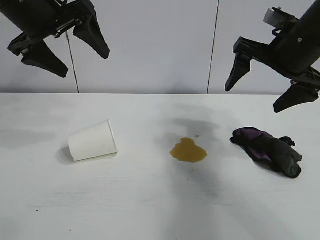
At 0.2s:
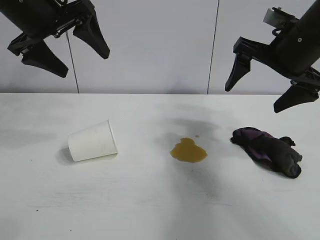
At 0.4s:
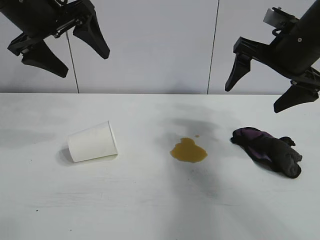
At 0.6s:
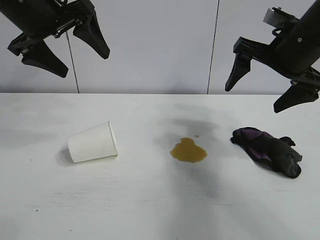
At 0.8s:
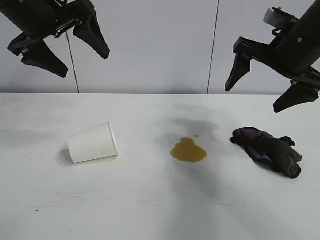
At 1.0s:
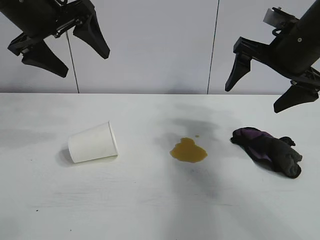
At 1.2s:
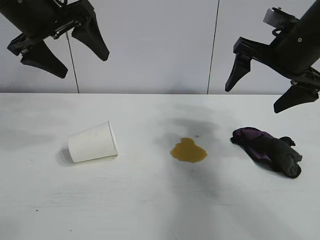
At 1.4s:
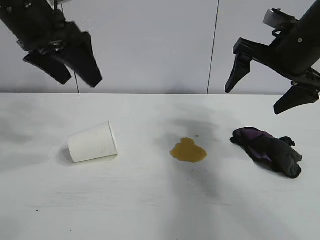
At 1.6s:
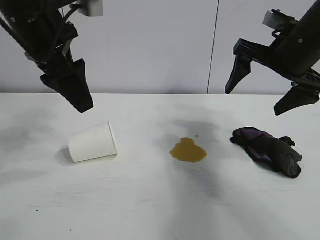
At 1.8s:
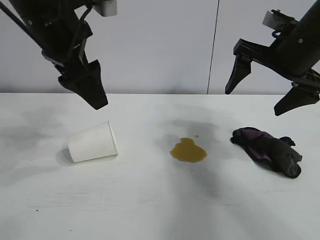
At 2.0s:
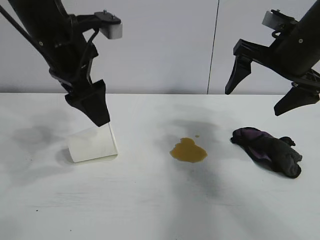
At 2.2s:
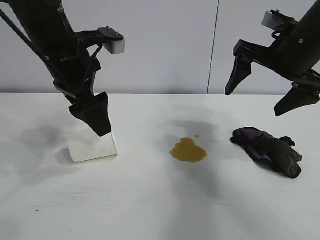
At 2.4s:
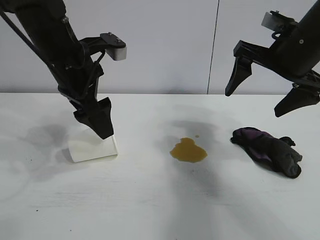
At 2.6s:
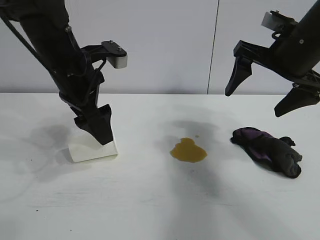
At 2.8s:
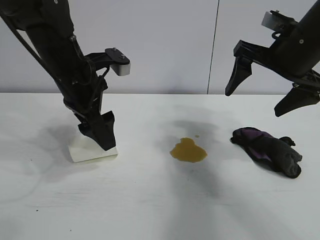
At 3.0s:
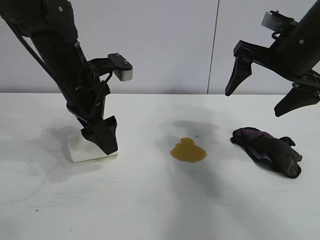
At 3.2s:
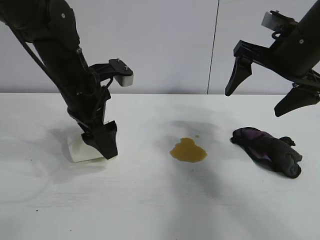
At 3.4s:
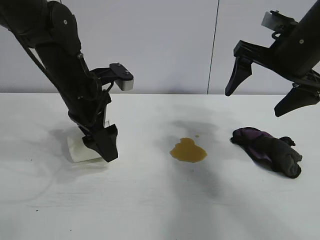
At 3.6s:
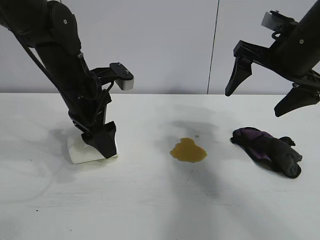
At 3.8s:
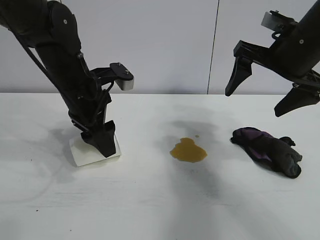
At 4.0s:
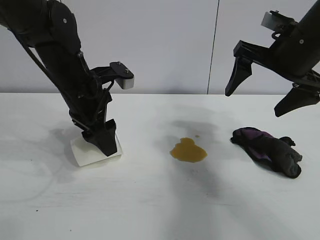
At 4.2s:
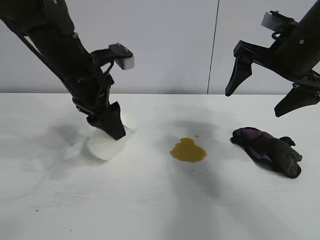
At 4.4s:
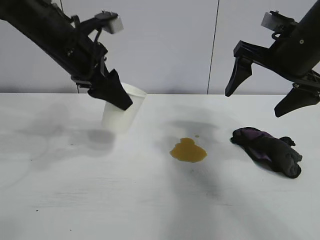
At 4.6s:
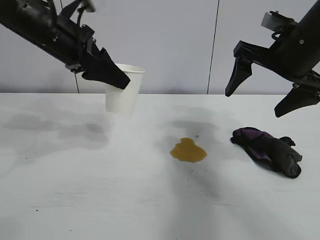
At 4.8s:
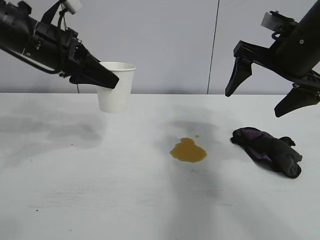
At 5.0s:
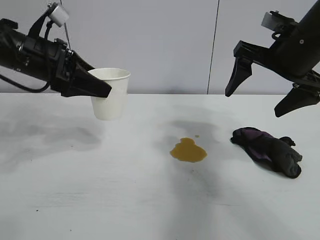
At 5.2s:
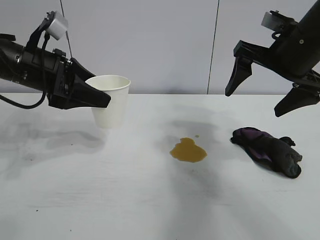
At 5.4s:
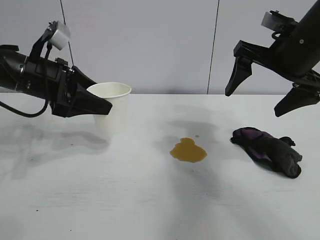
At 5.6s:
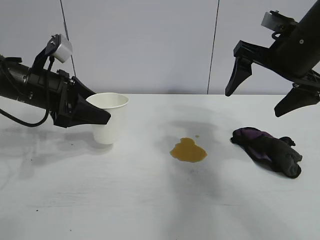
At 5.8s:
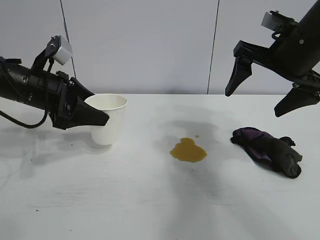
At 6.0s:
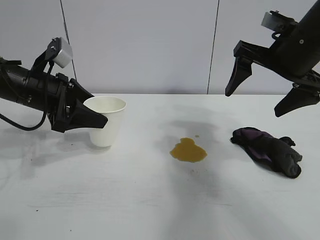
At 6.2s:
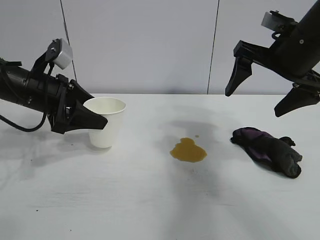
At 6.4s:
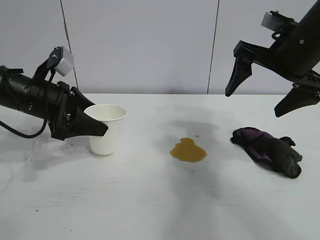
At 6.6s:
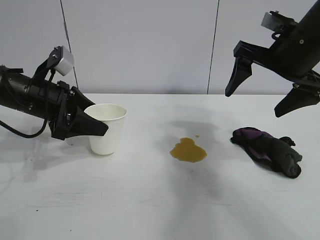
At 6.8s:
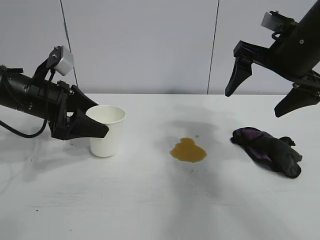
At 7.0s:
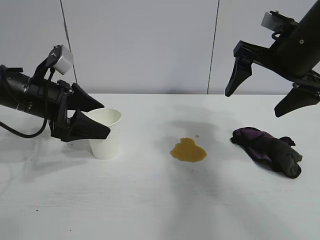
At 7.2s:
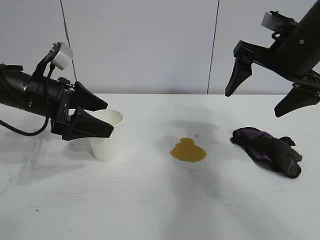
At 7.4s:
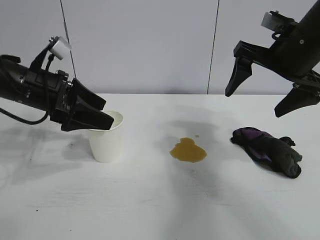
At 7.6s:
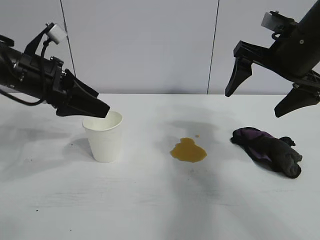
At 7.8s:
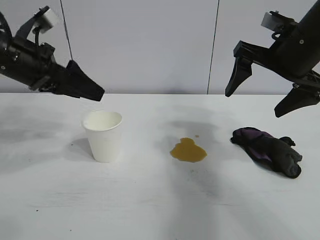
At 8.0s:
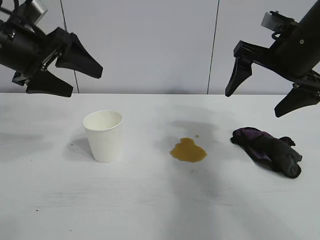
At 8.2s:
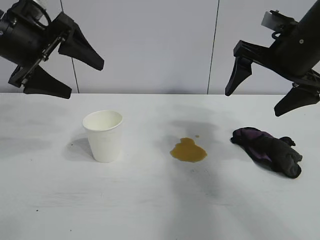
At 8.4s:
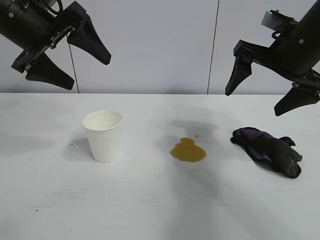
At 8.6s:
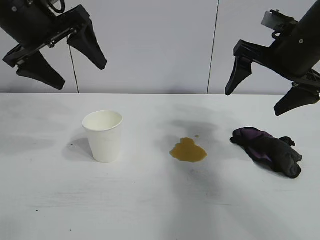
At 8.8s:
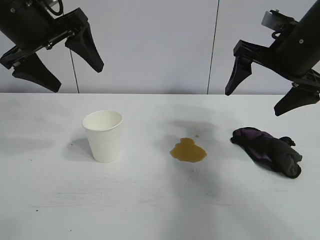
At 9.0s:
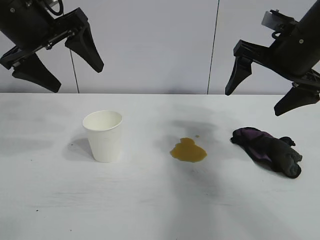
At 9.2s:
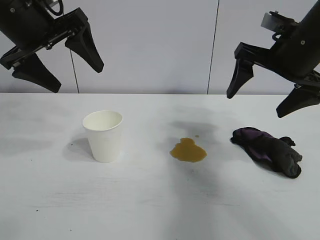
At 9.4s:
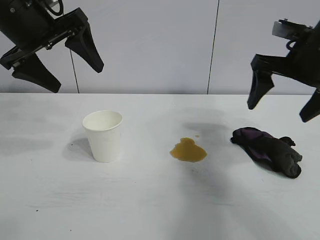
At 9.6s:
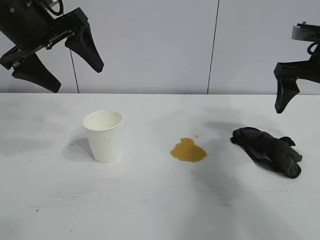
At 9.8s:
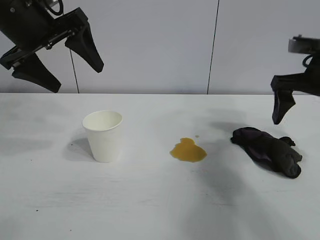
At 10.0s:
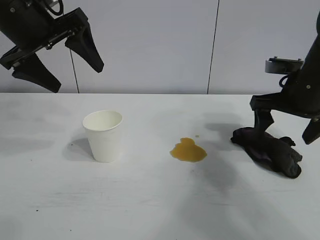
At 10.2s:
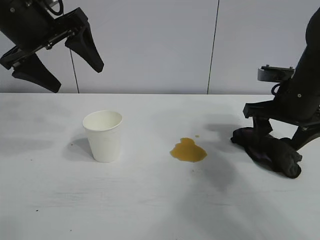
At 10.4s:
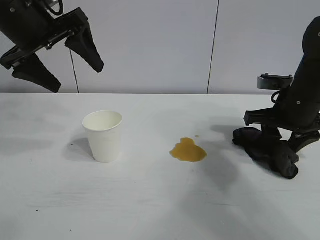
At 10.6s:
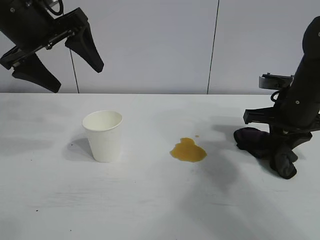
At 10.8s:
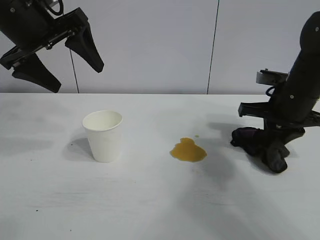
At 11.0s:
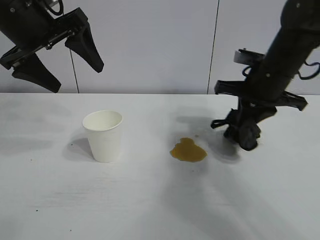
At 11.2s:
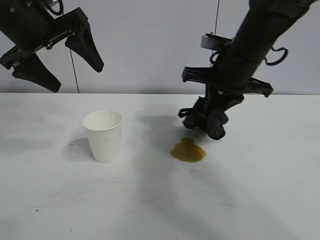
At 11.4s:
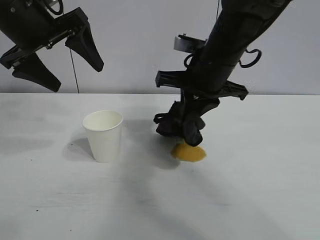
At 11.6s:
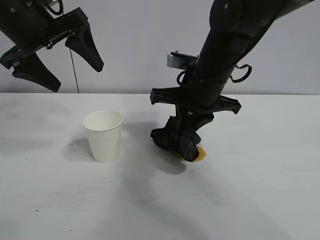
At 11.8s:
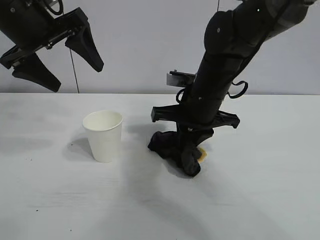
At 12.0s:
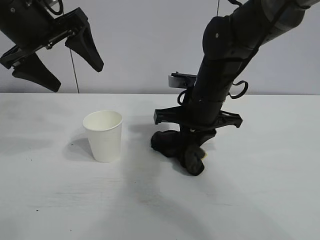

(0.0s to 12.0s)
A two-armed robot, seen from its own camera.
Task of the whole recording: the left gripper pick up the fallen cup and place it upright, the right gripper grasp the black rag and wipe the stain on the table, the right gripper put the black rag back in its original position.
Step, 1.2s - 3.8s: Grasp the paper cup with left gripper.
Step, 4.2s - 6.8s: Stand the paper cup upright with left gripper.
Step, 7.2s - 10.6s: Grasp the rag with right gripper.

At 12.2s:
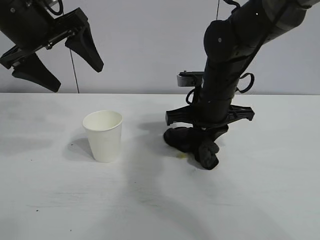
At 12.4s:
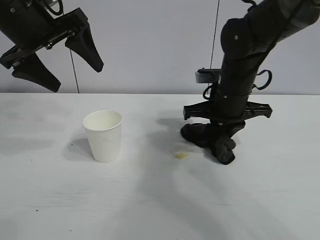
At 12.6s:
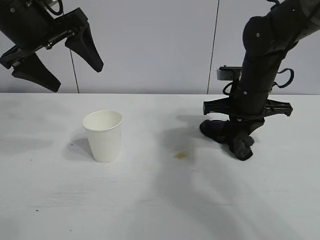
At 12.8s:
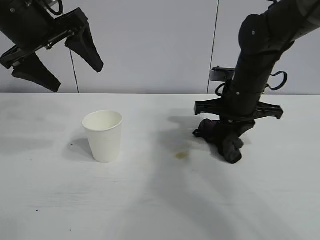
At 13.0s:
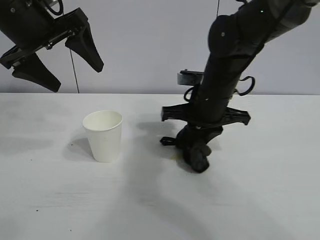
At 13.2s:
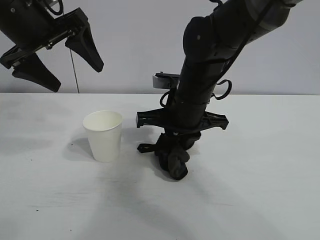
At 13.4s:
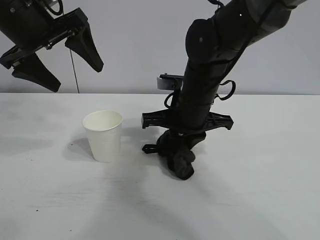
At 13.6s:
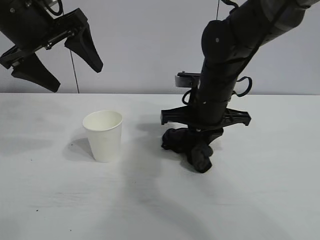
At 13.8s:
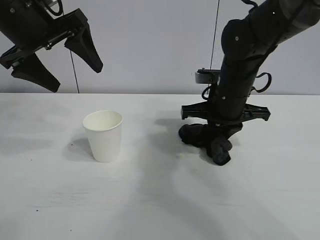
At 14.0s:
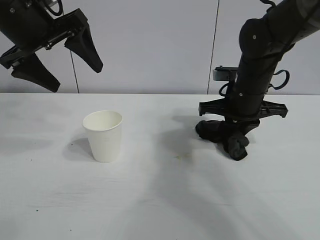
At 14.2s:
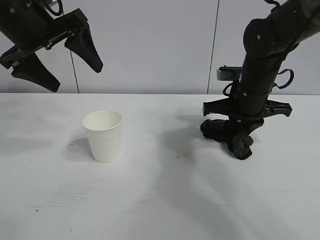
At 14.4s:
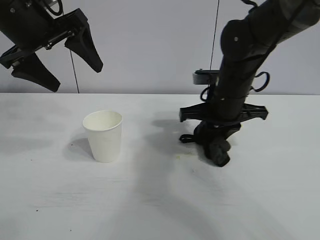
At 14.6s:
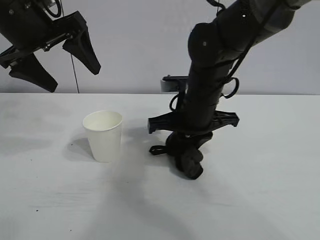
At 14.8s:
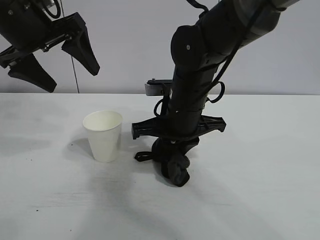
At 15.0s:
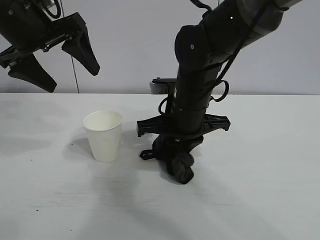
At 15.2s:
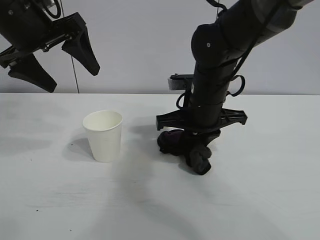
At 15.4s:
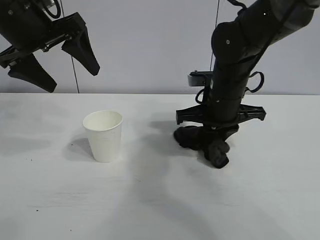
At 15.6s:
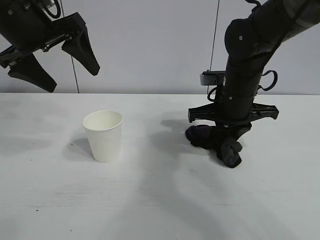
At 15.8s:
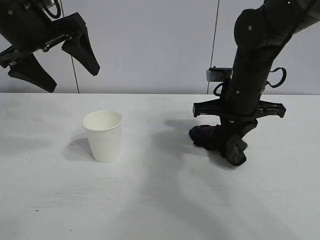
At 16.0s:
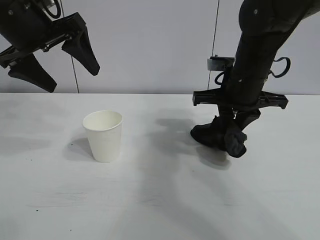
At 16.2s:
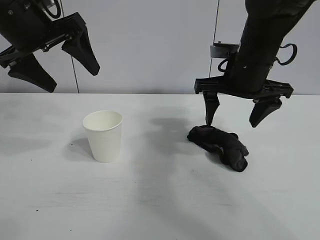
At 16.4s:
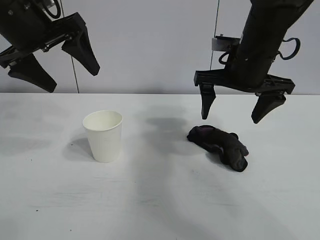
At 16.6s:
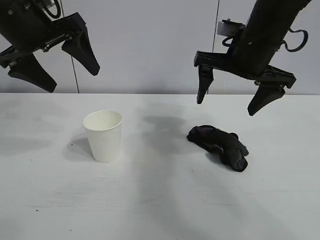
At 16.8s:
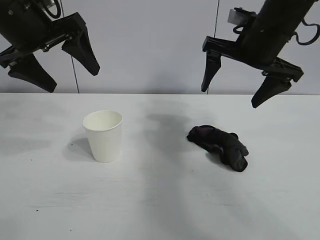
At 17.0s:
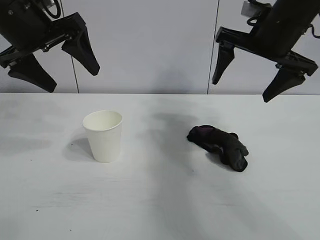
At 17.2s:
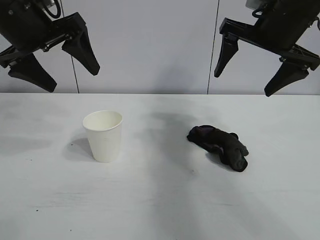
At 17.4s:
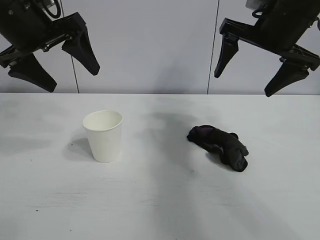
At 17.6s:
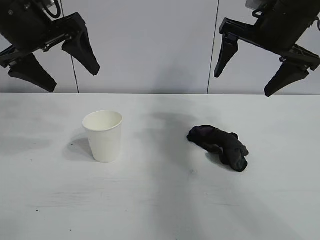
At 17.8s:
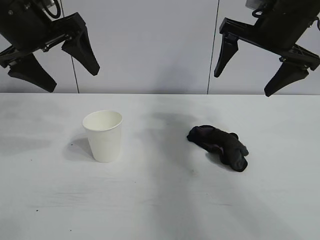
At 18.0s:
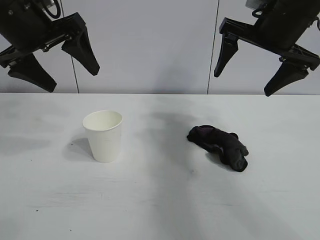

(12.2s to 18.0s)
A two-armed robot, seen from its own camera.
Task of the whole recording: the left gripper pick up the fallen cup and place it upright, the right gripper grasp the black rag and wipe the stain on the table, the right gripper put the black rag back in its original position.
Step, 12.2s - 15.6s: Wipe the stains off the table with the rag with right gripper.
Step, 15.8s - 16.0s: Place the rag on the table with right gripper.

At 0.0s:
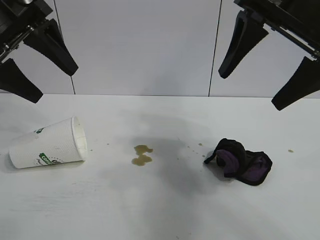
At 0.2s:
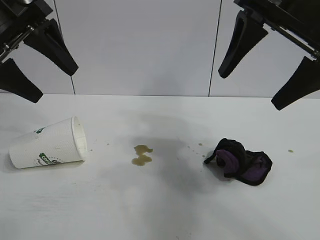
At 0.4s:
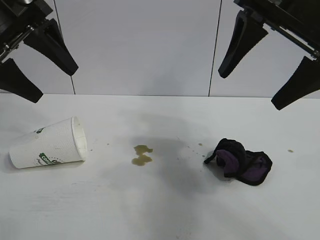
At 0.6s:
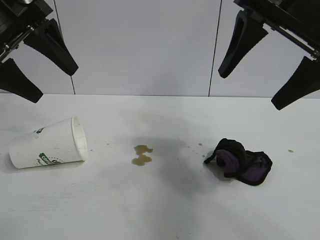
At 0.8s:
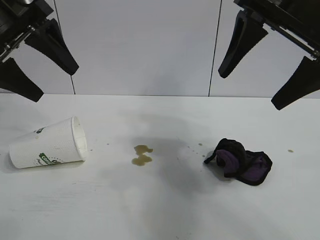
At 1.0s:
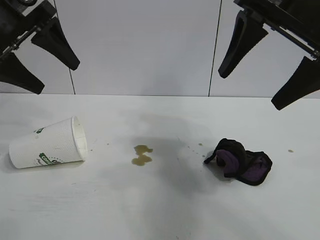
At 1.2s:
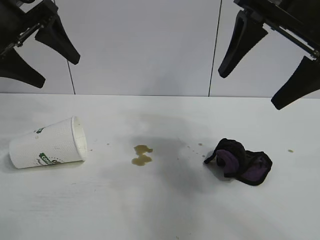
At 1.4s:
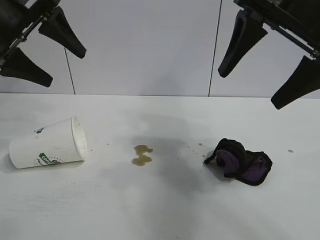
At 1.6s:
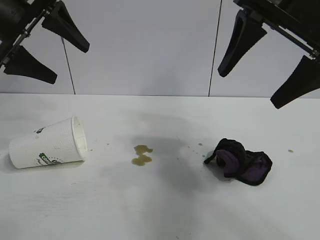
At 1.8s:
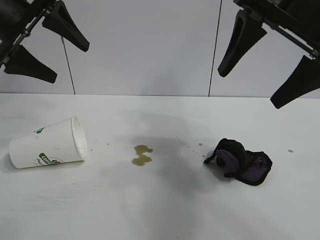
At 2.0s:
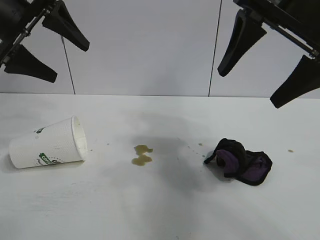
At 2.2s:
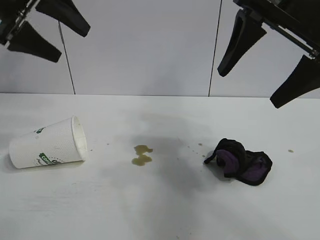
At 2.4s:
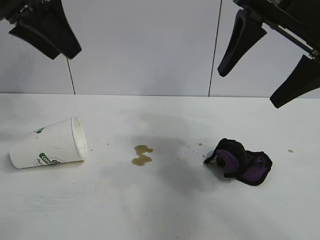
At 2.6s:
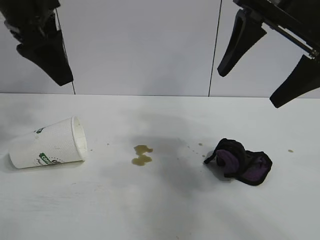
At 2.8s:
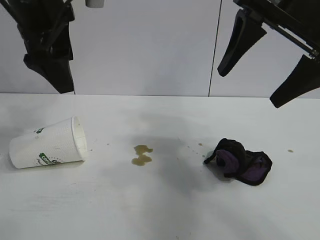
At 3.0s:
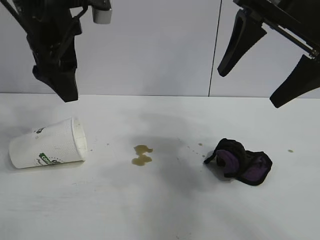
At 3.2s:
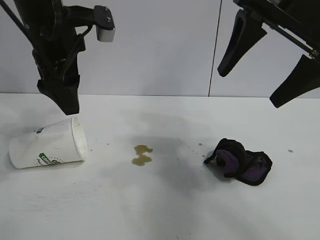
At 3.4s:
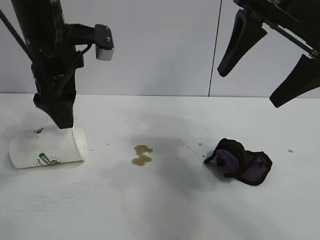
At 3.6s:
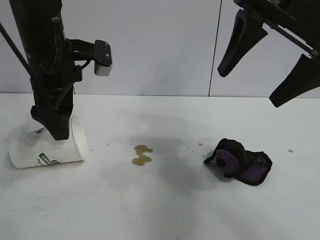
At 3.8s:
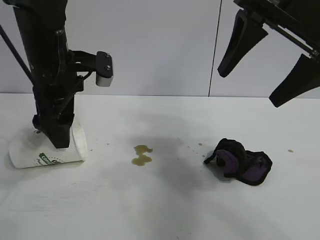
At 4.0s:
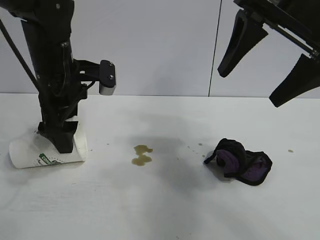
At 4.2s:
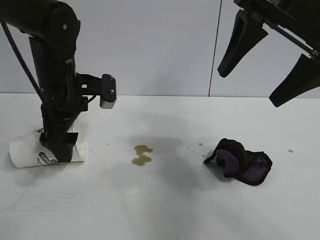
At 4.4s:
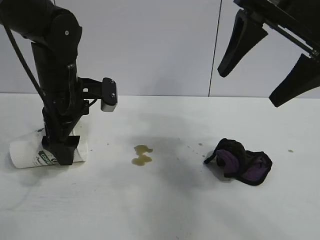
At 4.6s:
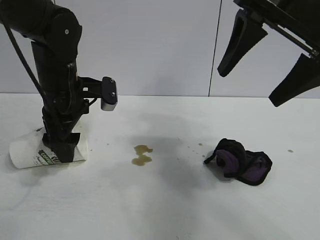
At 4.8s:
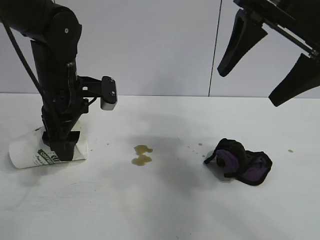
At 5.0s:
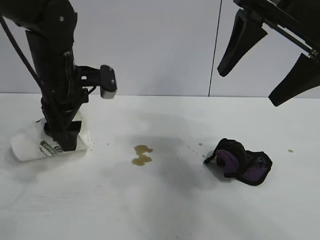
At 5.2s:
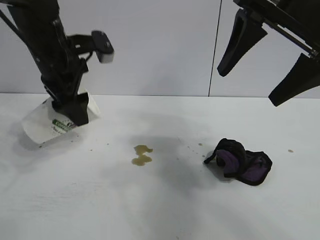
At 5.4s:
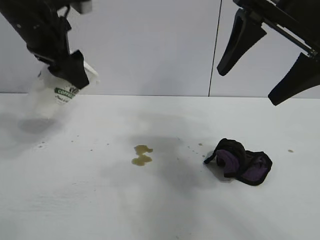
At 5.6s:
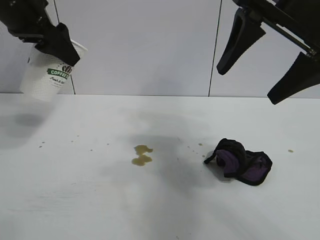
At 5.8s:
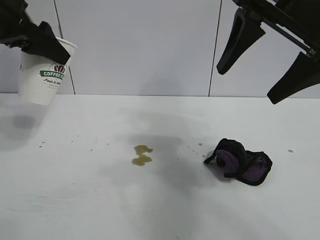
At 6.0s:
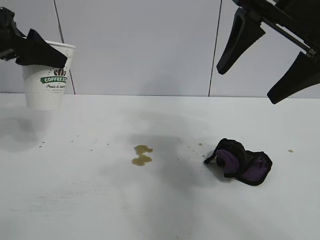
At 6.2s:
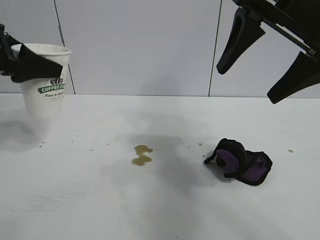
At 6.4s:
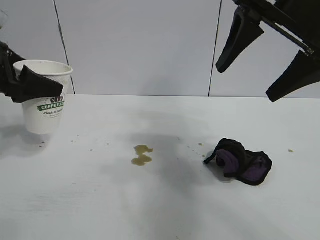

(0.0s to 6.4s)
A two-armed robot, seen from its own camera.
Task of the whole recording: the left gripper pick up the fallen cup and place it upright, the right gripper grasp the black rag and wipe the stain on the table, the right gripper put the black rag back in its original position.
Step, 0.8s - 4.8s: Grasp the paper cup with left gripper.
